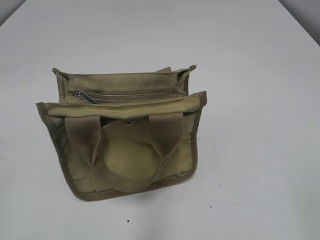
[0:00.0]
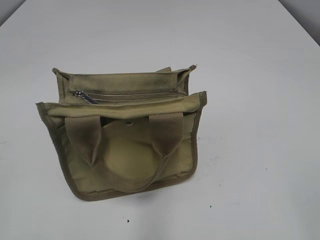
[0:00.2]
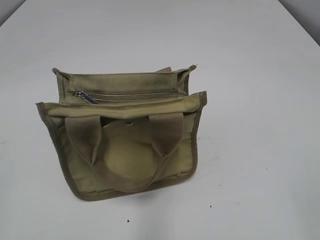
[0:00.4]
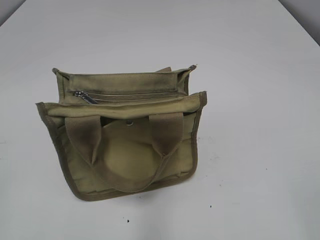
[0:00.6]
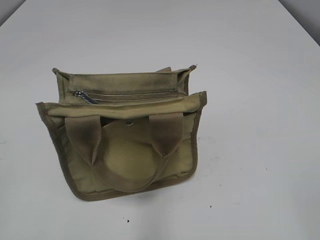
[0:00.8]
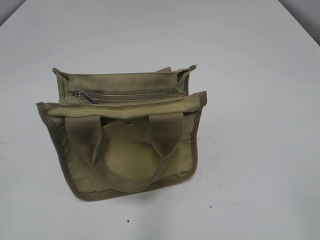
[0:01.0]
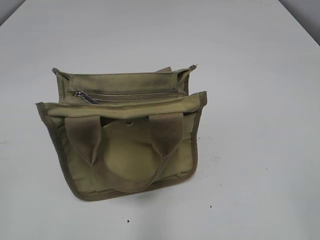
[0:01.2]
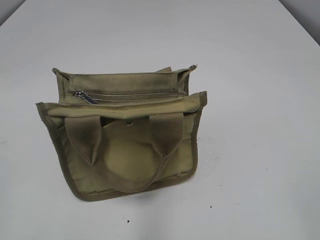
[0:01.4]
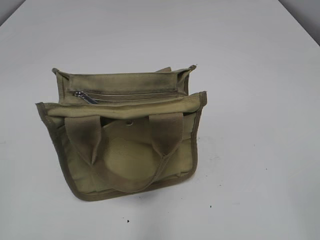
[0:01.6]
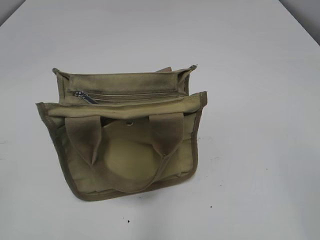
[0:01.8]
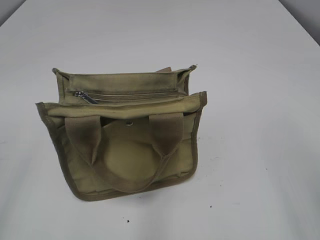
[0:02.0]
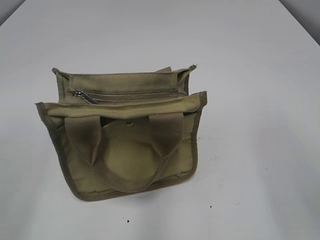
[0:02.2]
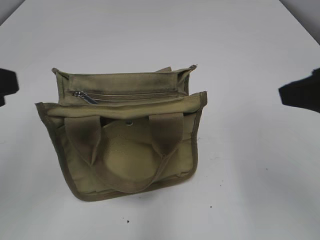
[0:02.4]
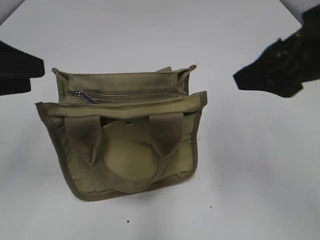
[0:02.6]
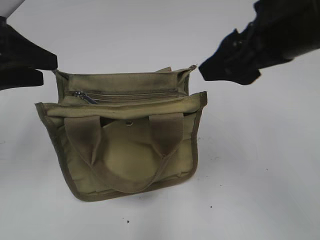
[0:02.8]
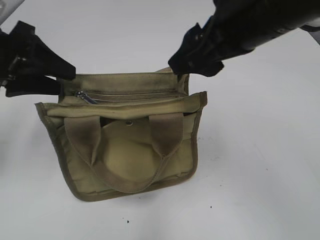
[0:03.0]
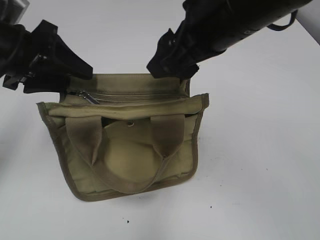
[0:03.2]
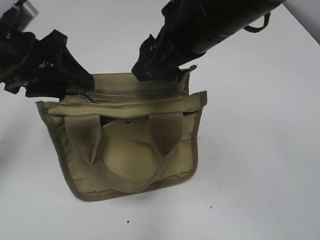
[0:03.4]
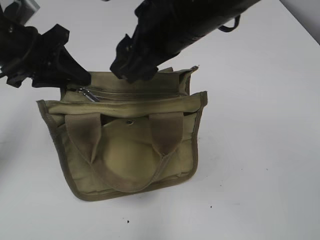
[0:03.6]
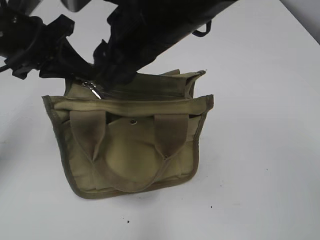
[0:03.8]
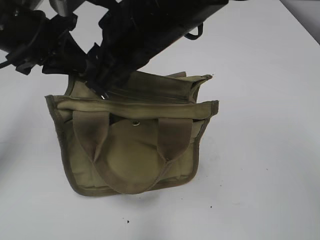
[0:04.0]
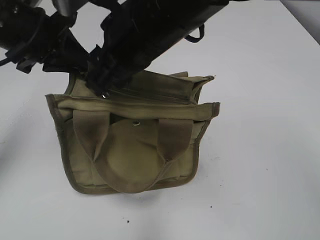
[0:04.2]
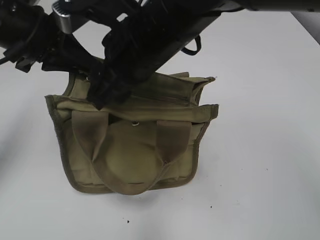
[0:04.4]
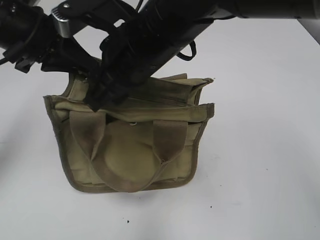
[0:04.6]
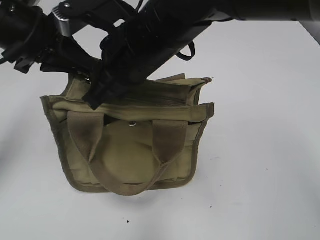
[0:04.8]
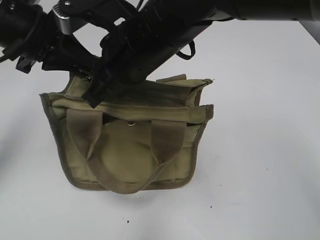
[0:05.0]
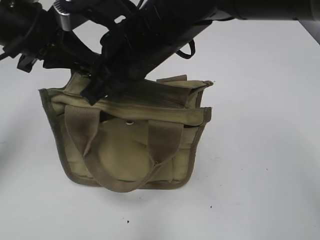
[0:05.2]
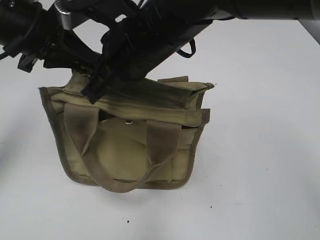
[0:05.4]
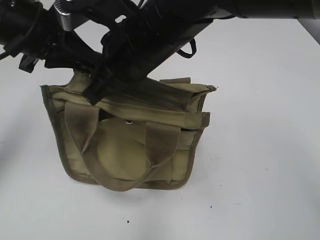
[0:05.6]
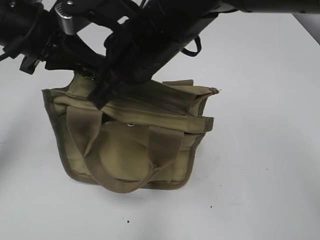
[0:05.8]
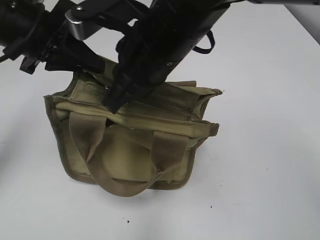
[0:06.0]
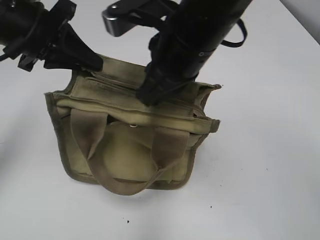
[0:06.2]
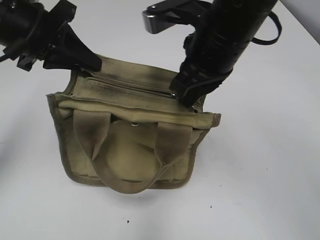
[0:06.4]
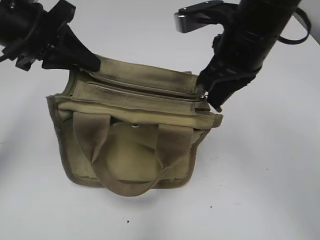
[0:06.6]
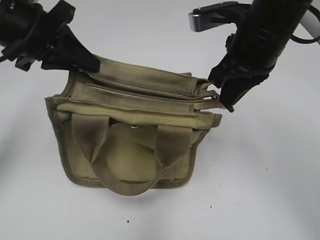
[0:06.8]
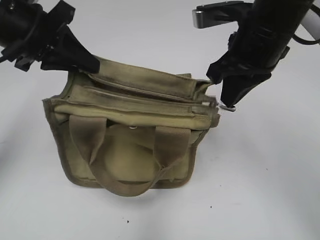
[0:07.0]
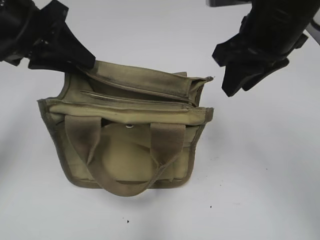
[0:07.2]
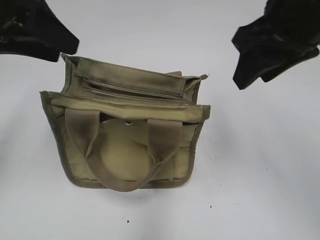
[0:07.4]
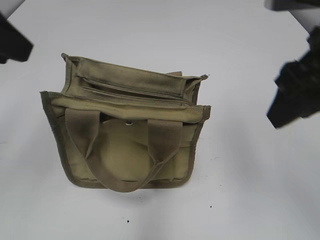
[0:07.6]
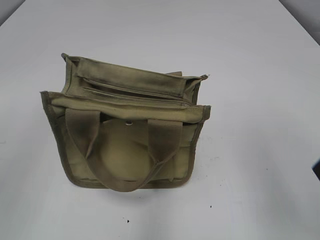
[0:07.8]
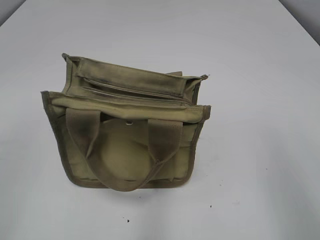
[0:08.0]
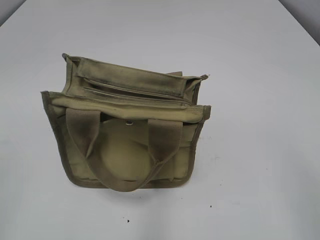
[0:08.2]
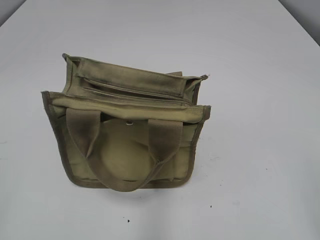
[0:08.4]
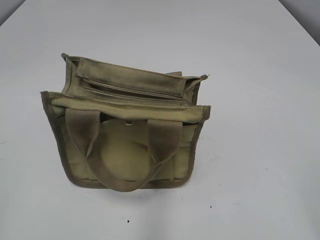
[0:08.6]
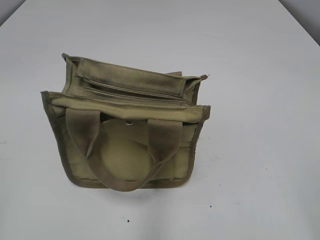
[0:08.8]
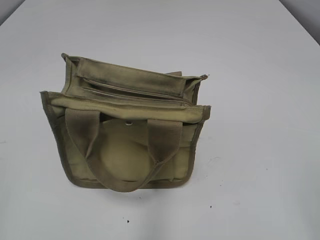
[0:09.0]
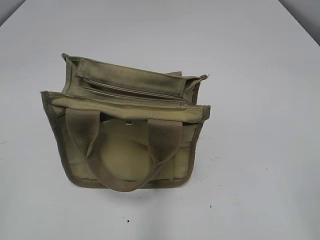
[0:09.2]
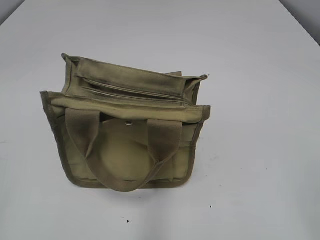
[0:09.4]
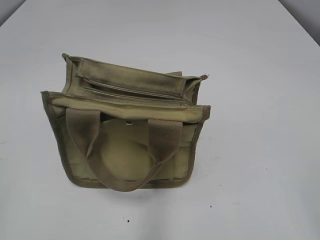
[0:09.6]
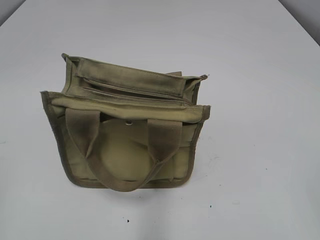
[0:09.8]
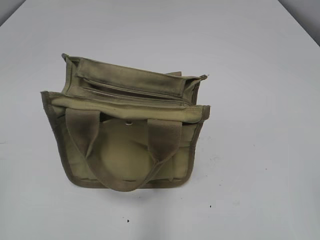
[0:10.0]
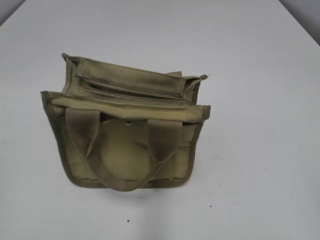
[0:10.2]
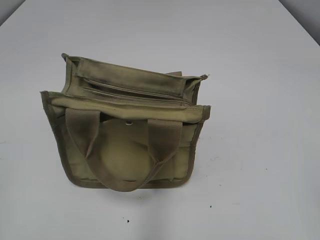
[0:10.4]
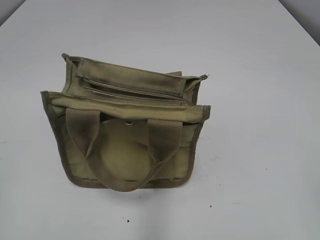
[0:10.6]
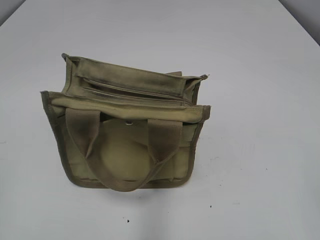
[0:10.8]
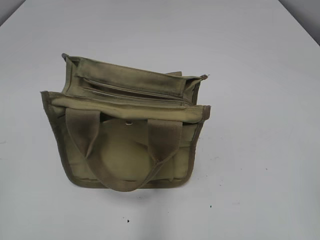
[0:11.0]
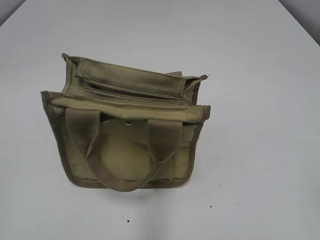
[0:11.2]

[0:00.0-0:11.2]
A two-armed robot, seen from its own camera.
Step, 0:00.0 to 0:07.0: Pull open the zipper with your right hand.
Step, 0:07.2 to 0:07.4: Hold the bag with your left hand.
0:01.6 to 0:03.2: The right gripper moves forward and to the left, approximately 35 cm; the left gripper travels forward by some 30 cm.
0:03.2 to 0:04.8: The left gripper closes its fingers, while the right gripper travels to the left and downward by some 10 cm, and closes.
0:04.8 to 0:06.4: The right gripper is displaced to the right by roughly 10 cm, and closes.
0:06.4 to 0:08.0: The left gripper shifts approximately 25 cm backward and to the left, and opens up. Meanwhile the right gripper shifts approximately 25 cm backward and to the right, and opens its fingers.
0:08.0 to 0:09.6: The right gripper is displaced backward by about 10 cm.

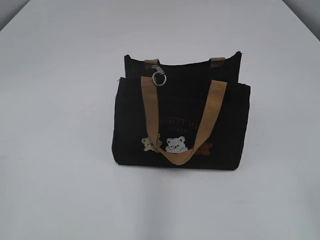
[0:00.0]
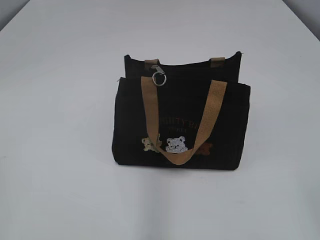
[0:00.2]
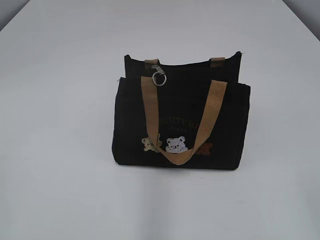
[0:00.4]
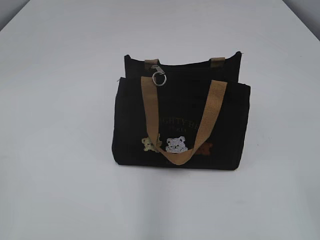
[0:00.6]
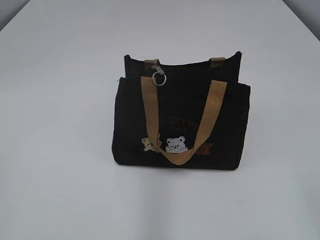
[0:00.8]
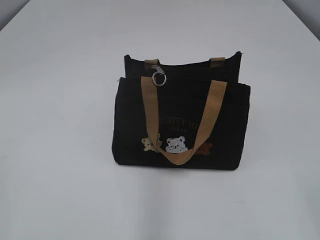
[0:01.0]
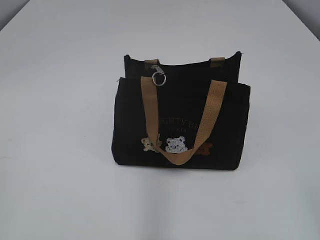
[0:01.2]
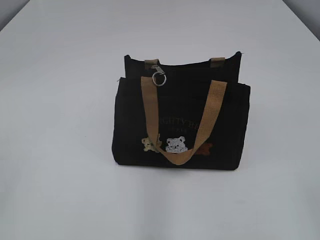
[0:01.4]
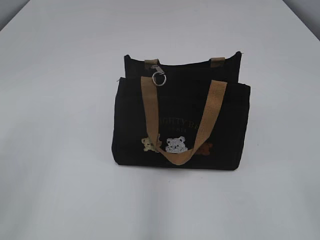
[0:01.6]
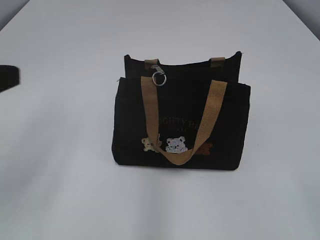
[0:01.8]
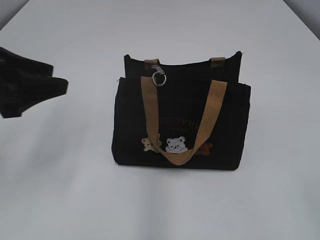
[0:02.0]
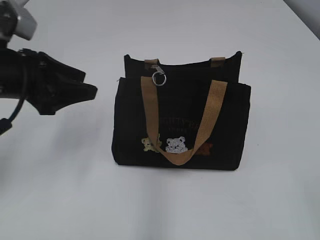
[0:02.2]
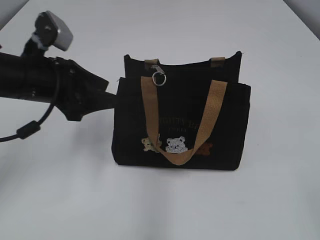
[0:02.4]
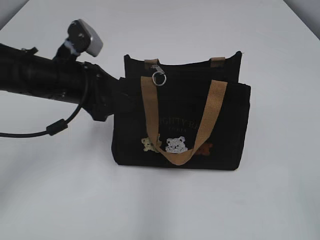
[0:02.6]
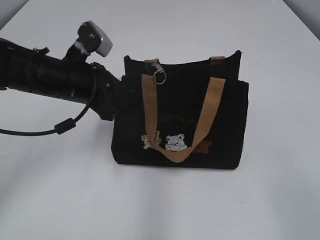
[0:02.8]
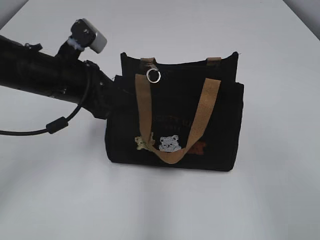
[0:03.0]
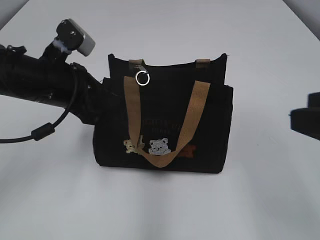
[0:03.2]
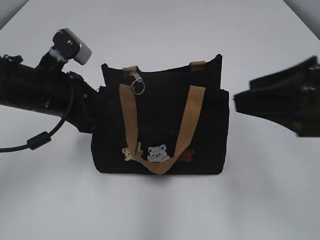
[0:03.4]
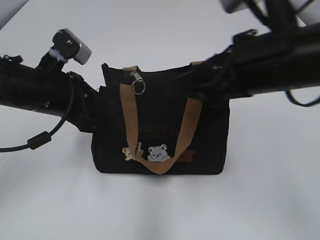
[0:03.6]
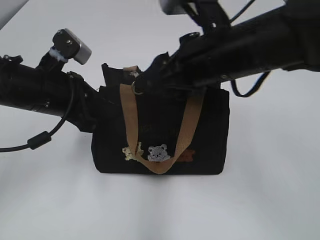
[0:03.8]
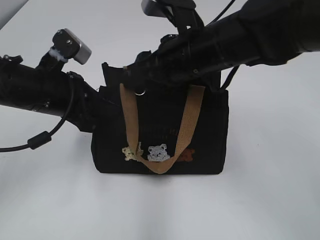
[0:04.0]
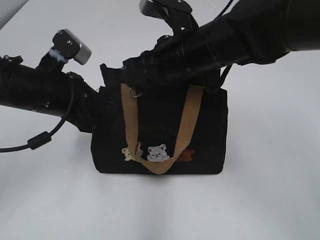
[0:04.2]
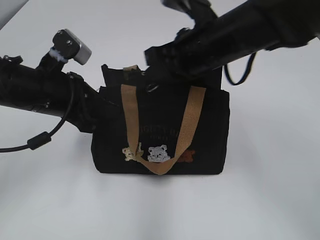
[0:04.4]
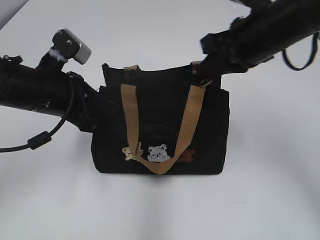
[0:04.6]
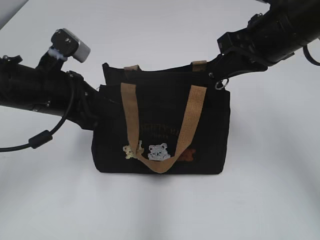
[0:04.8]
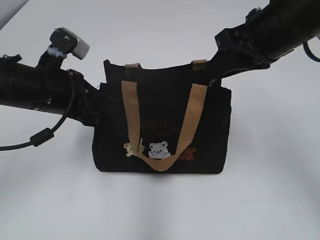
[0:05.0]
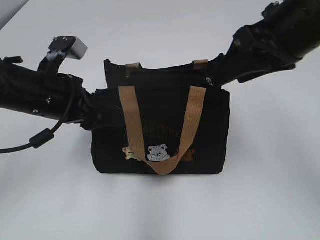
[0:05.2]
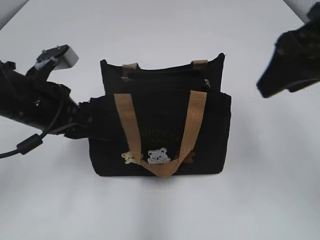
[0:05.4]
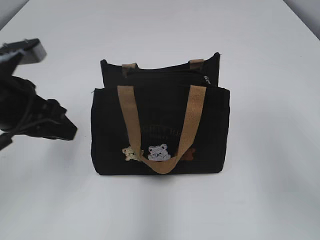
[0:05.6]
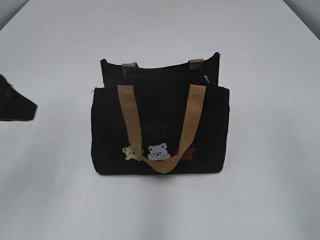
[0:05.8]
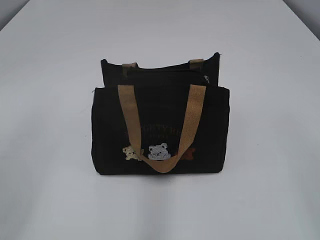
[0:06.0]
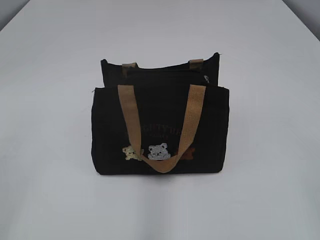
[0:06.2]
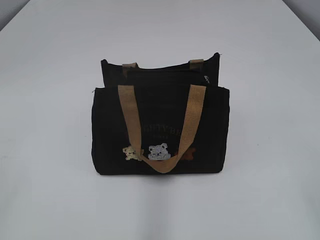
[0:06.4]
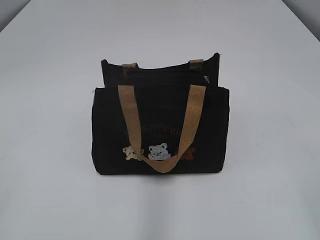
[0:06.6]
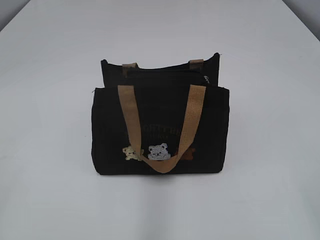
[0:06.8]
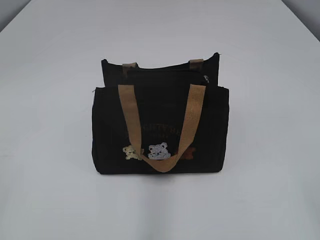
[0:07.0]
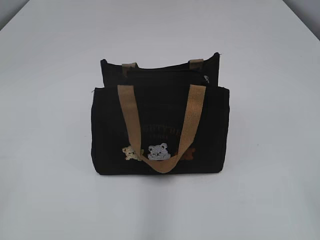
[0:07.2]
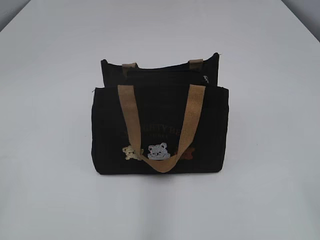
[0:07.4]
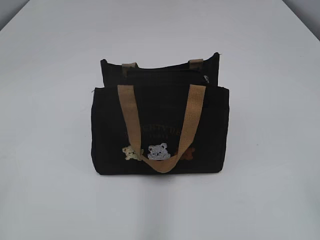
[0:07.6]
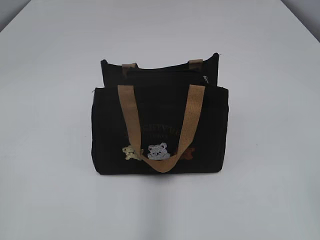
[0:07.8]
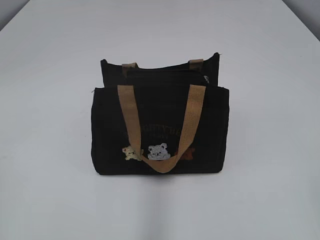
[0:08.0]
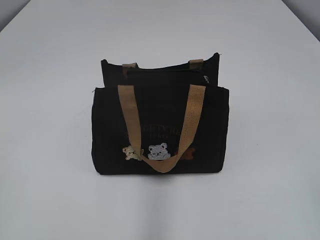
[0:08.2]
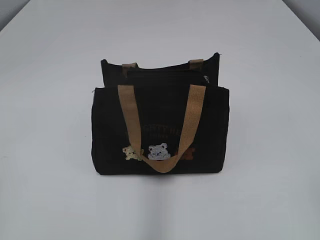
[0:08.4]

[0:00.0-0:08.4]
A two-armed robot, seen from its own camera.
Step, 0:00.0 to 0:05.0: Pull open the zipper with your right hand.
Step, 0:05.2 to 0:05.4: Hold the bag with your left hand.
0:01.4 to 0:02.8: The left gripper travels forward and to the right by approximately 35 cm, and opens, then closes again.
0:02.8 to 0:04.2: The right gripper heads forward and to the left, covering roughly 40 cm, while the left gripper closes.
0:04.2 to 0:05.6: The left gripper opens its fingers. The right gripper goes about 20 cm to the right, backward and upward, and closes and opens again.
0:05.6 to 0:07.0: The right gripper moves backward, roughly 20 cm; the left gripper heads backward and to the left, covering approximately 30 cm.

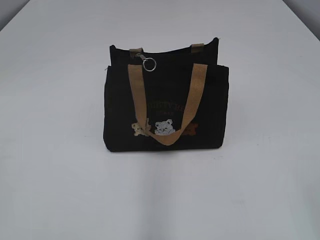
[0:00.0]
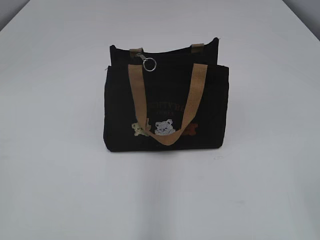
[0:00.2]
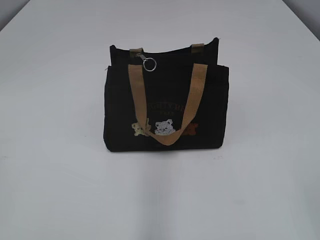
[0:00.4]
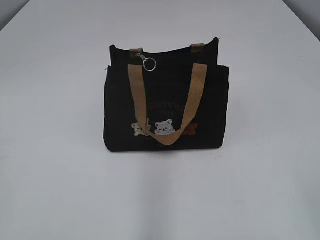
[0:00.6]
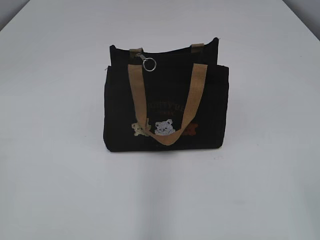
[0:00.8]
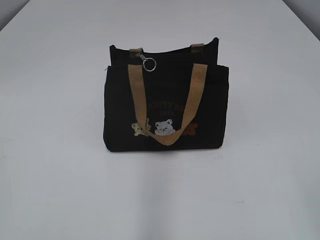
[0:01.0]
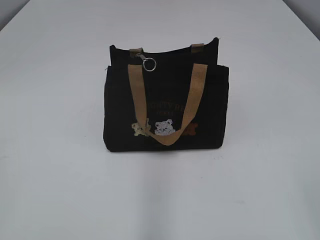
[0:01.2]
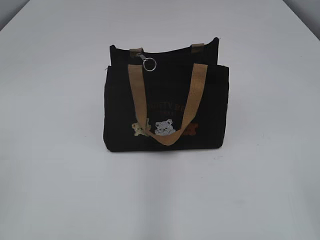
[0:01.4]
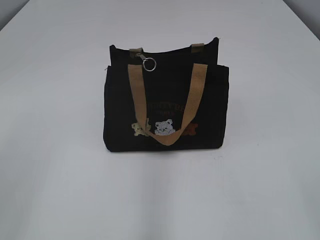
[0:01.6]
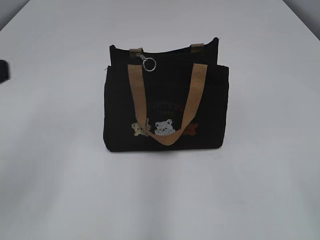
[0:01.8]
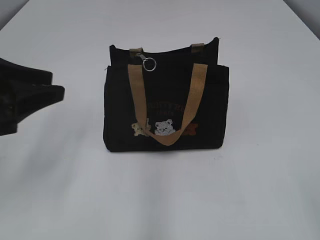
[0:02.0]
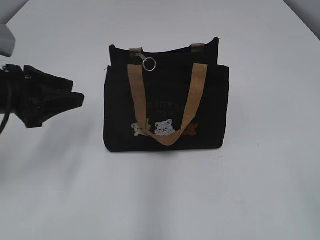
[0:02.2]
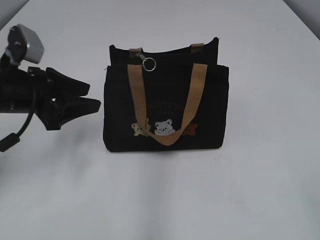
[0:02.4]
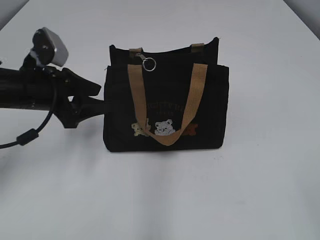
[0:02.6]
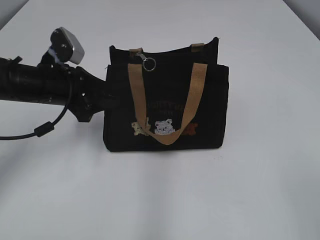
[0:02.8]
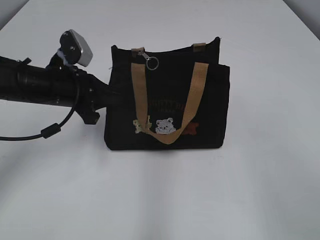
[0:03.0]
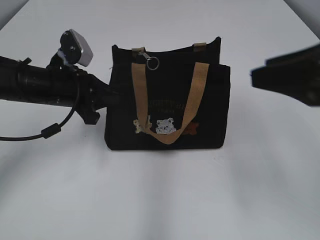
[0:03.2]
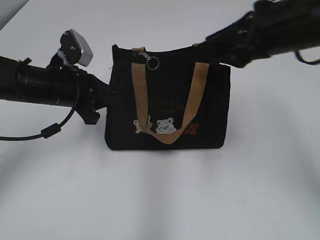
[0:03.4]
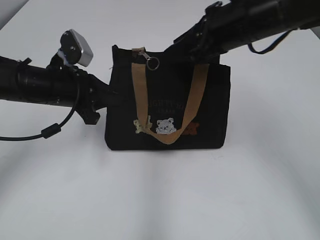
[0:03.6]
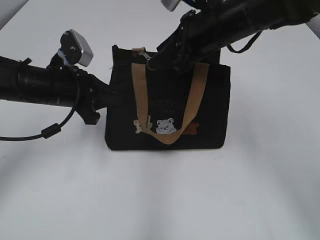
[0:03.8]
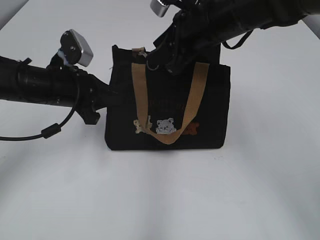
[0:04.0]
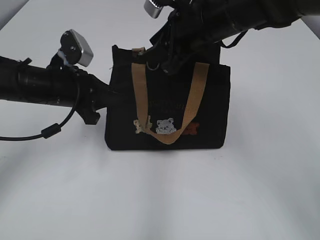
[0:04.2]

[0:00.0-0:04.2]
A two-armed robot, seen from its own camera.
0:01.4 to 0:02.8: The left gripper heads forward, covering roughly 35 cm, and opens its fingers.
0:02.8 to 0:04.2: The right gripper shifts about 40 cm forward and to the left. Meanwhile the left gripper closes up.
